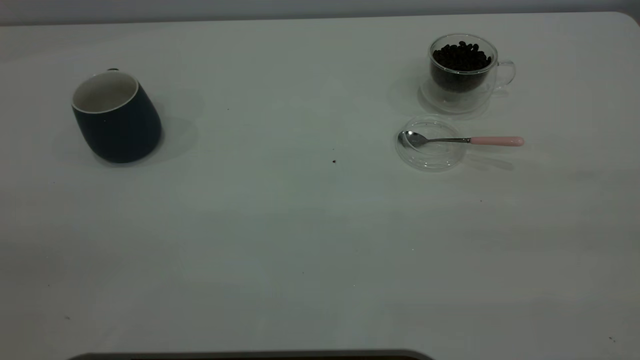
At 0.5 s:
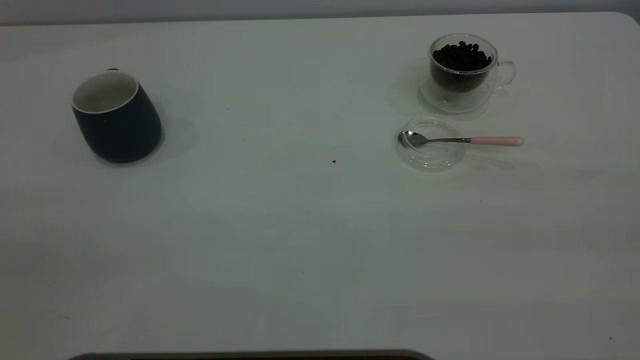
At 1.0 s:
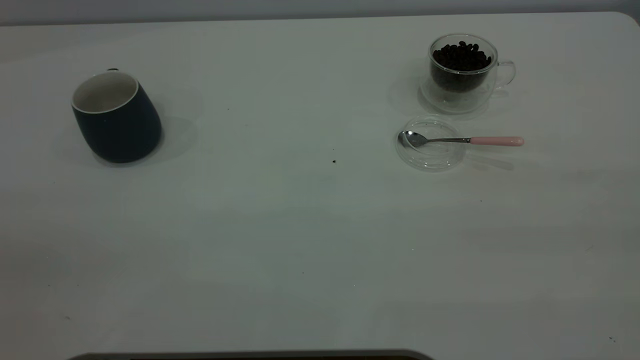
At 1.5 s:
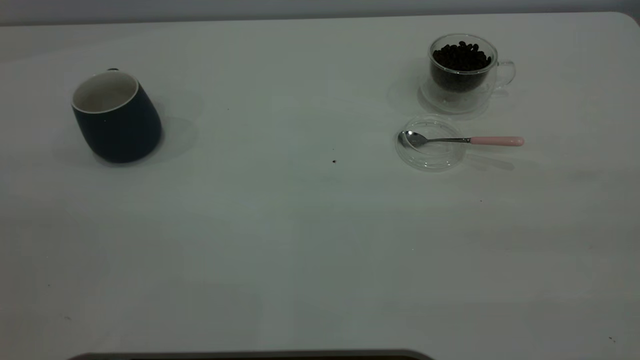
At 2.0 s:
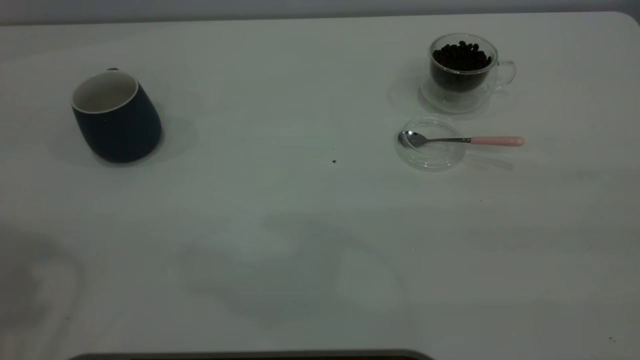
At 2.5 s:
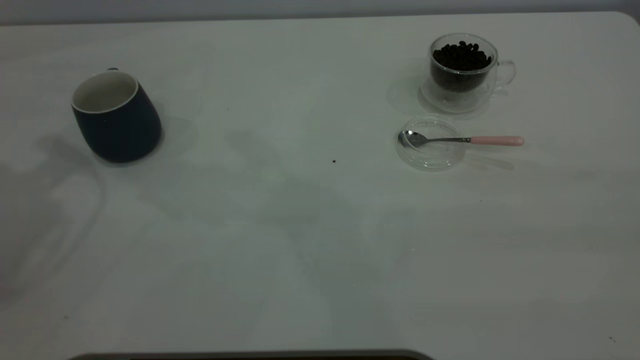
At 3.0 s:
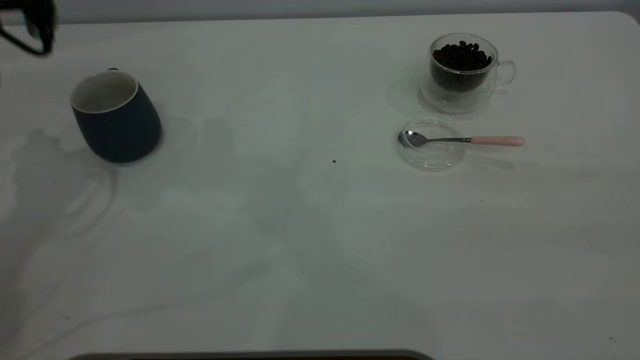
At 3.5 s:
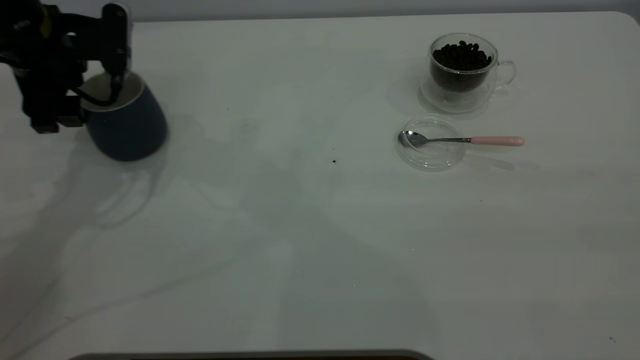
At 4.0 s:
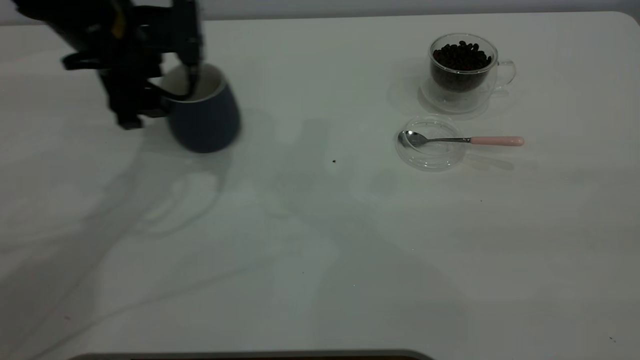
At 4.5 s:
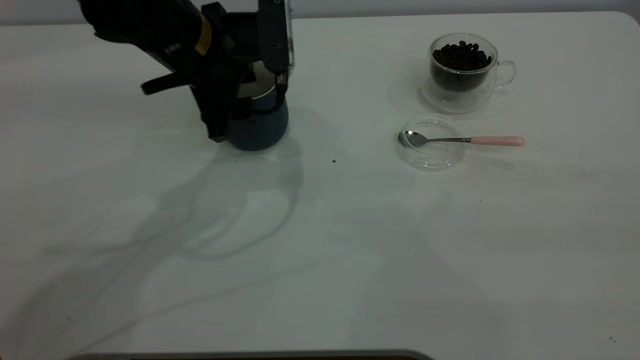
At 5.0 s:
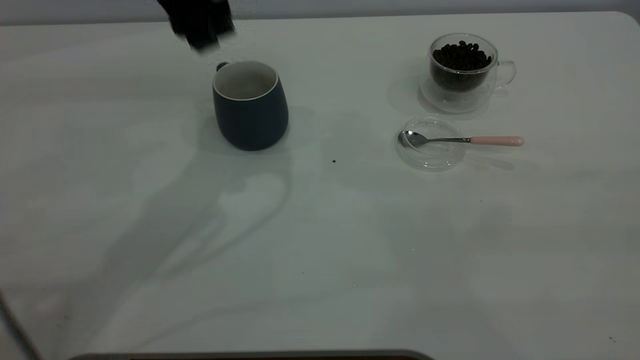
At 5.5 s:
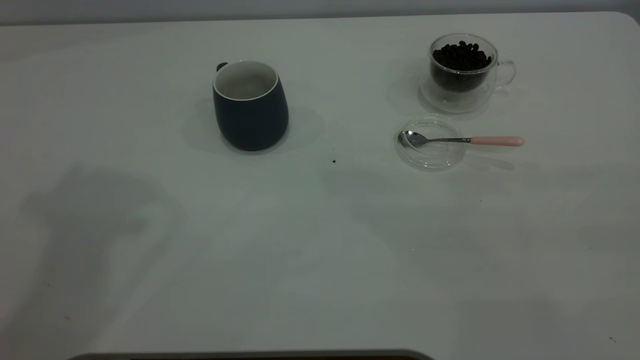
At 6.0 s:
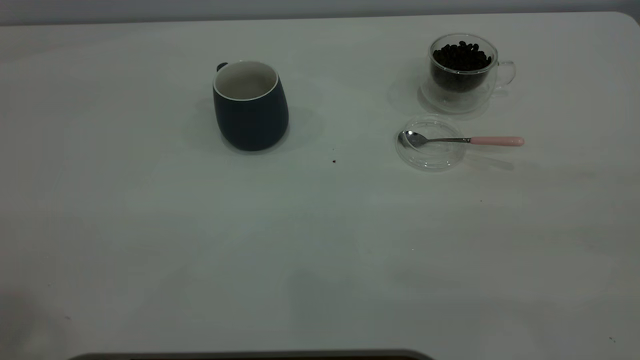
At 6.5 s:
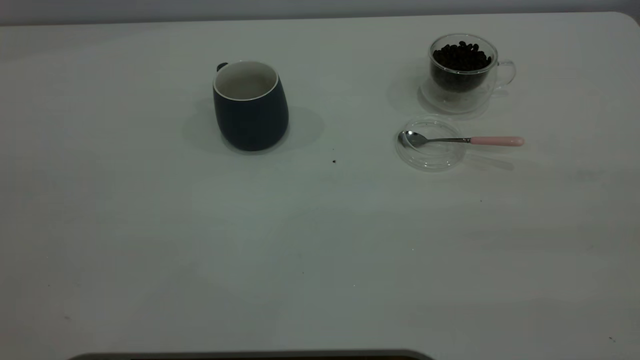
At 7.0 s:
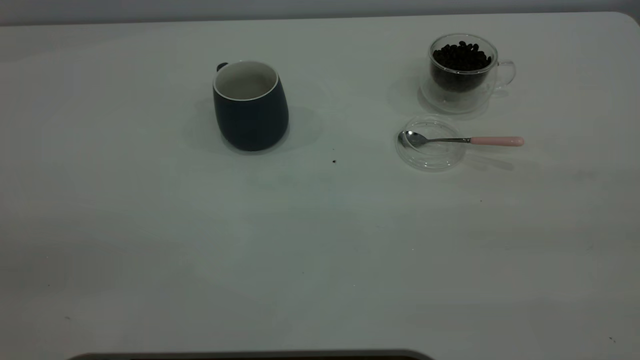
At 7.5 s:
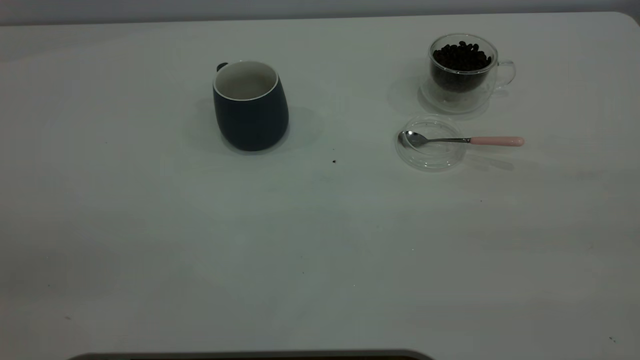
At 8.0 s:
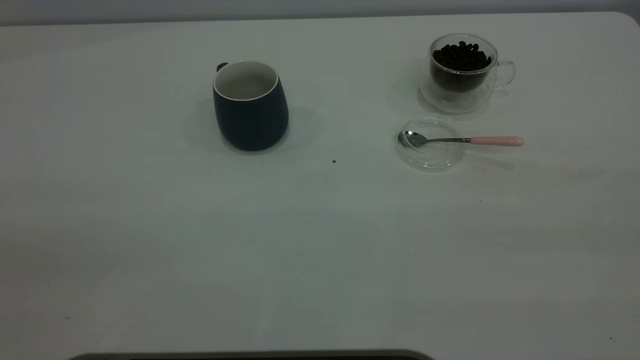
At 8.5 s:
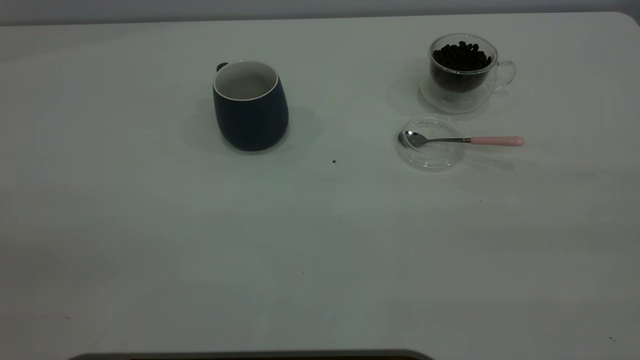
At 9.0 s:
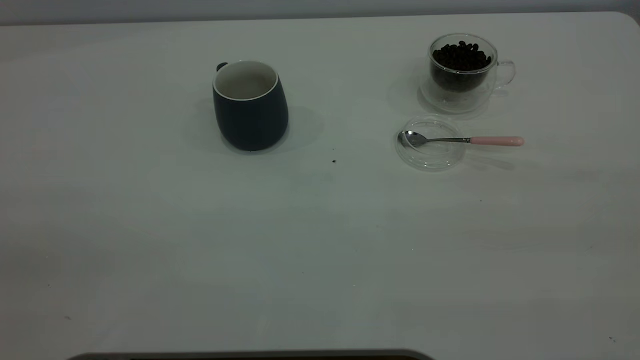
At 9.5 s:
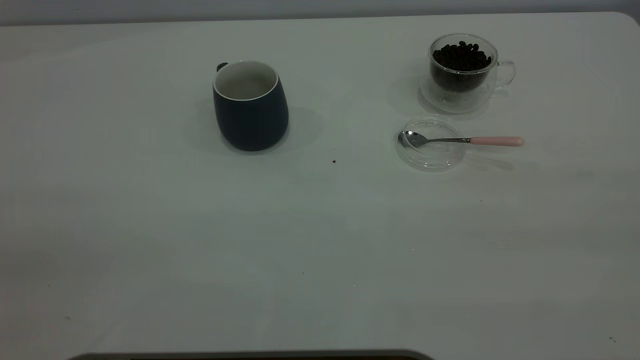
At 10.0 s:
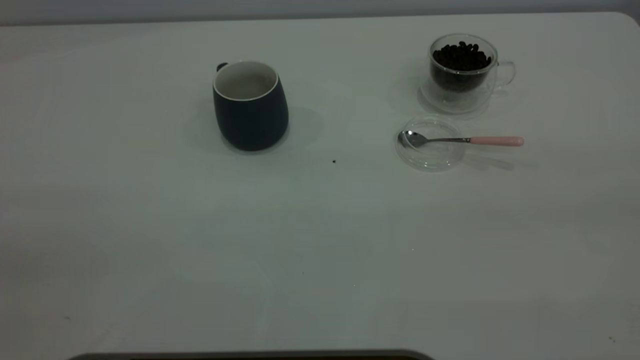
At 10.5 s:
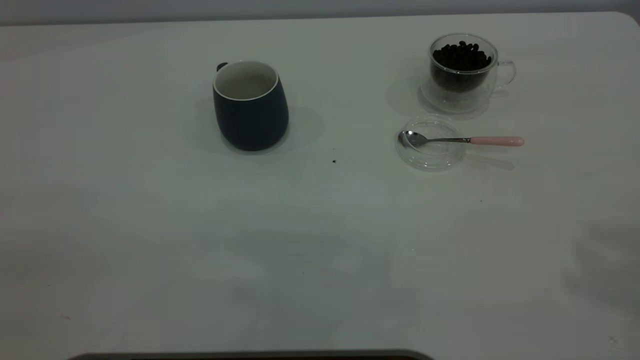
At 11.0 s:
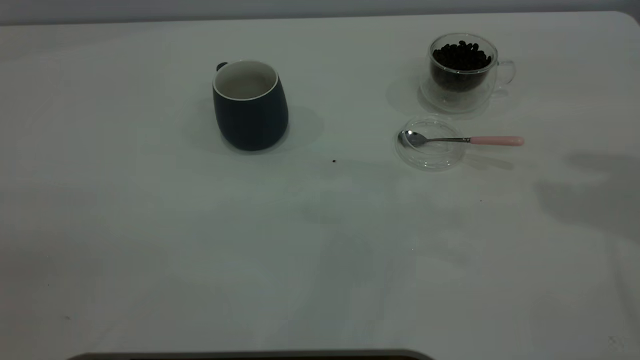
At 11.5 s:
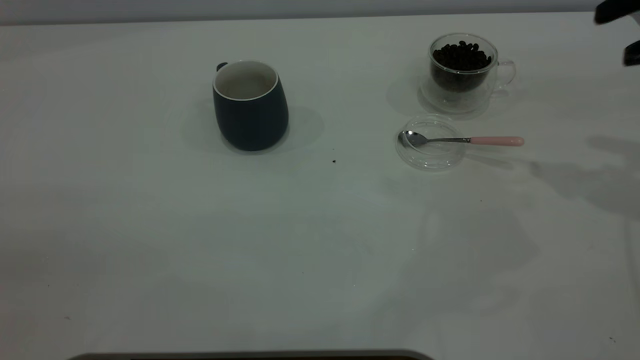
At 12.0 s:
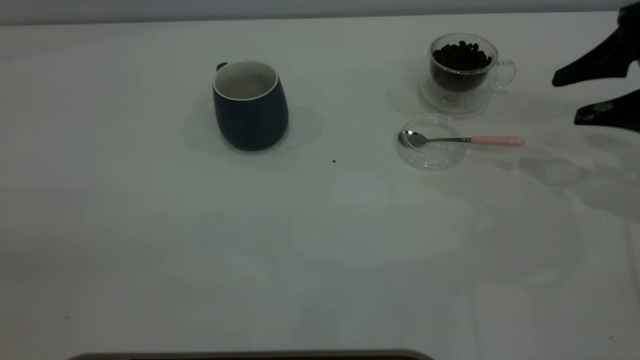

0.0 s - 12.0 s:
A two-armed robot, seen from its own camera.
Task of the whole recording: the left gripper place the grey cup in the center of the table, the right gripper take the pink spoon from the cup lid and scoop out the coffee beans from the coffee cup and put them into the grey cup, the right gripper put the spoon back into the cup lid.
Step, 0.0 s - 4.5 s: Move the cup to the center of view.
2.0 s - 4.0 s: The left gripper goes about 30 cm downward, forward and to the right.
4.0 s - 6.0 s: The left gripper travels upward and backward by roughly 40 cm.
10.0 s - 12.0 s: The right gripper goes some 40 cm forward and downward, and opens.

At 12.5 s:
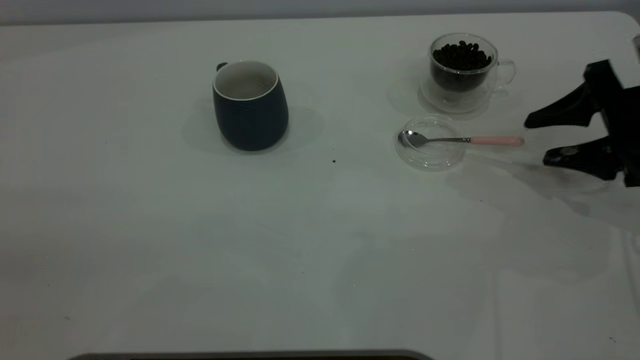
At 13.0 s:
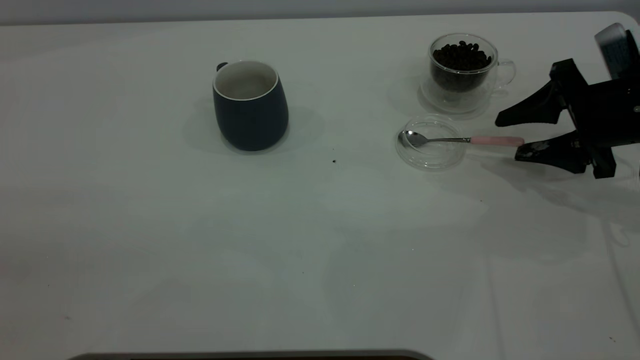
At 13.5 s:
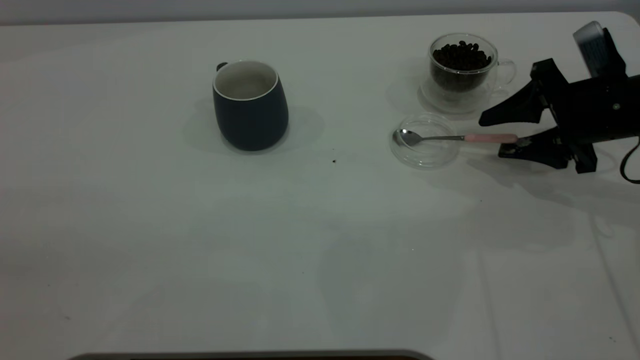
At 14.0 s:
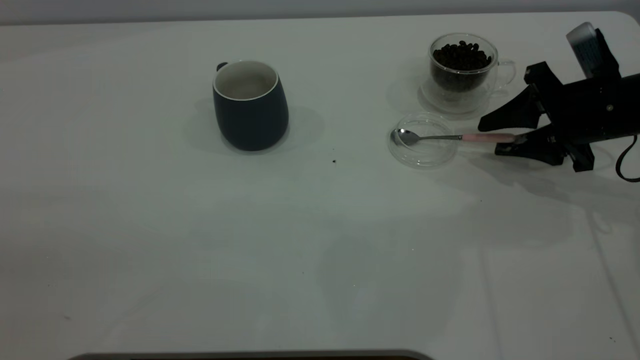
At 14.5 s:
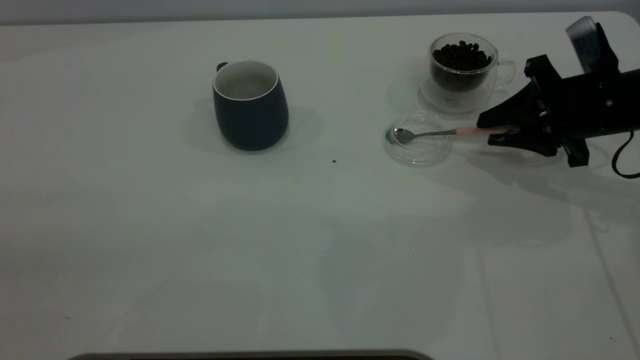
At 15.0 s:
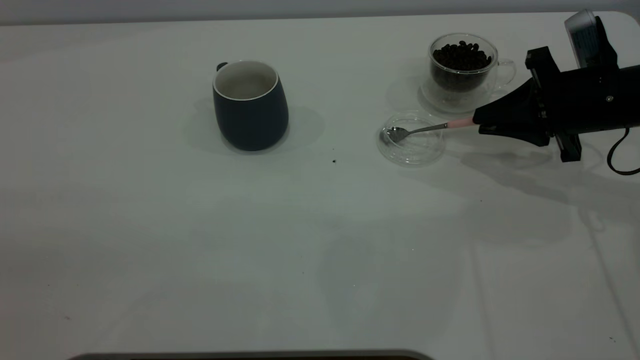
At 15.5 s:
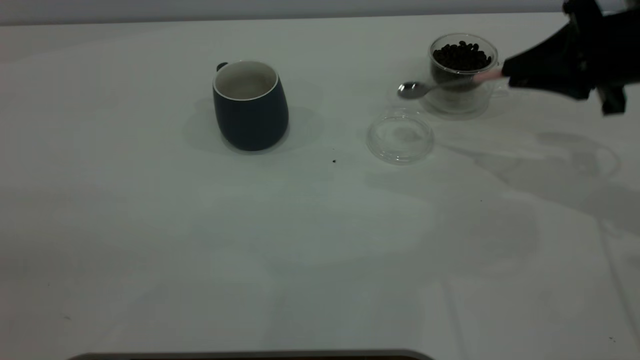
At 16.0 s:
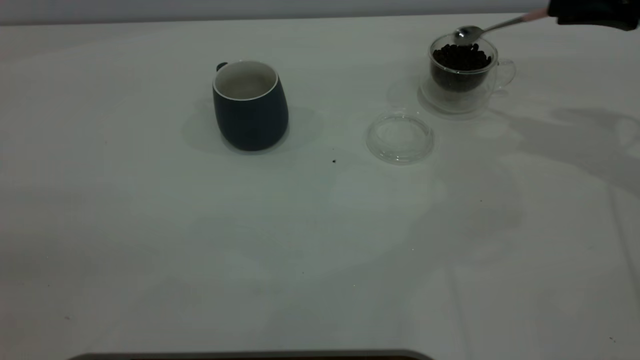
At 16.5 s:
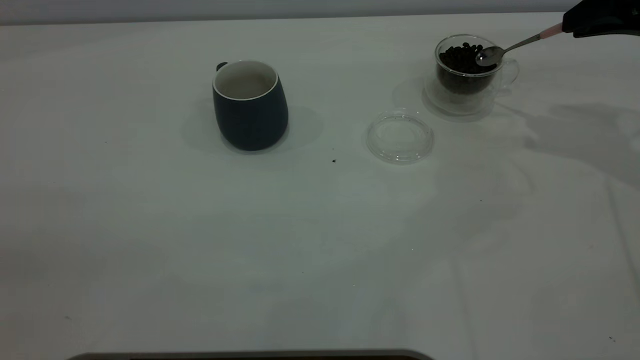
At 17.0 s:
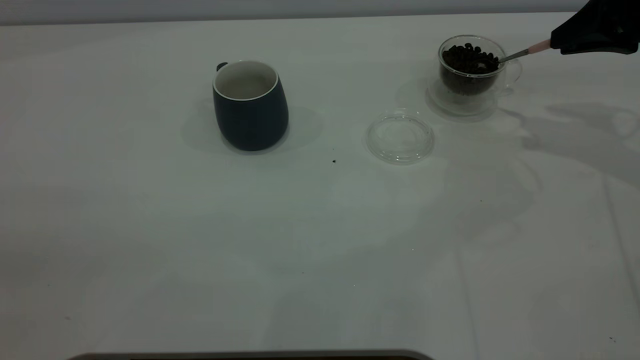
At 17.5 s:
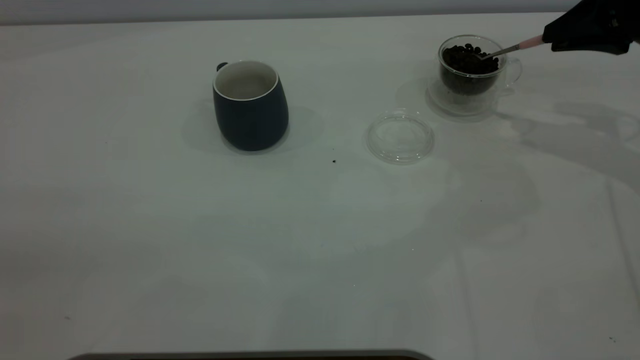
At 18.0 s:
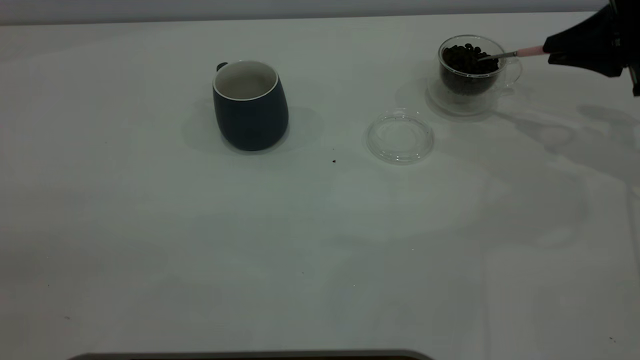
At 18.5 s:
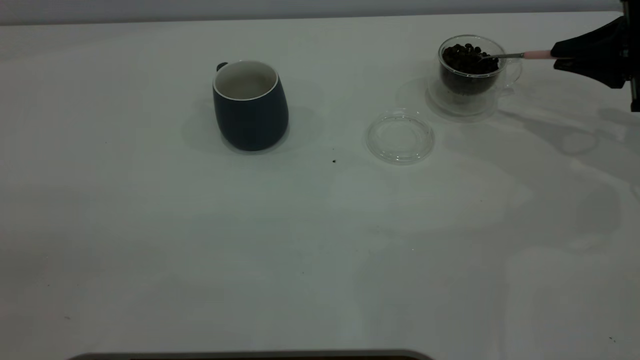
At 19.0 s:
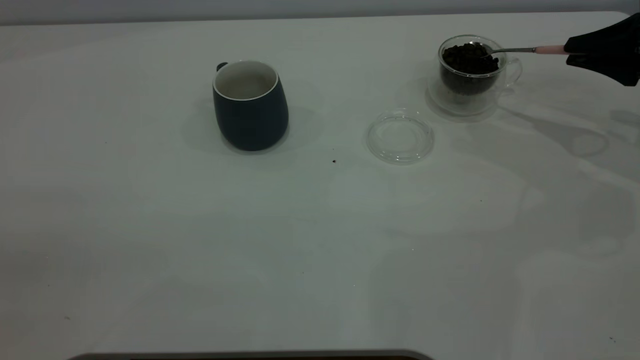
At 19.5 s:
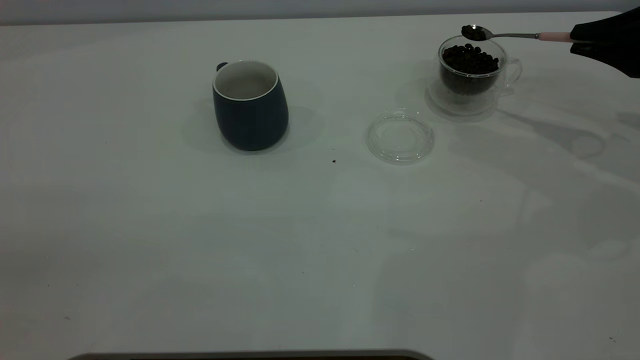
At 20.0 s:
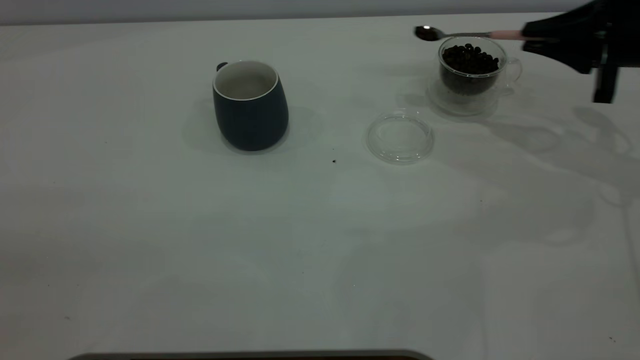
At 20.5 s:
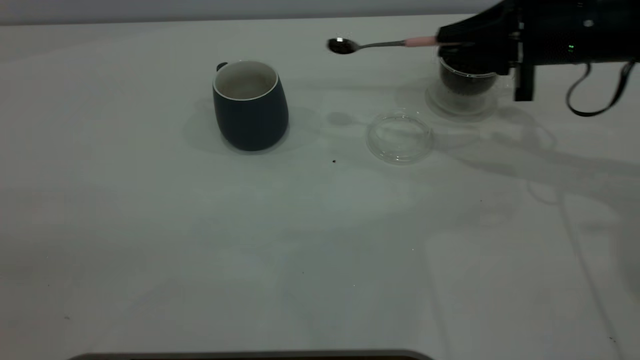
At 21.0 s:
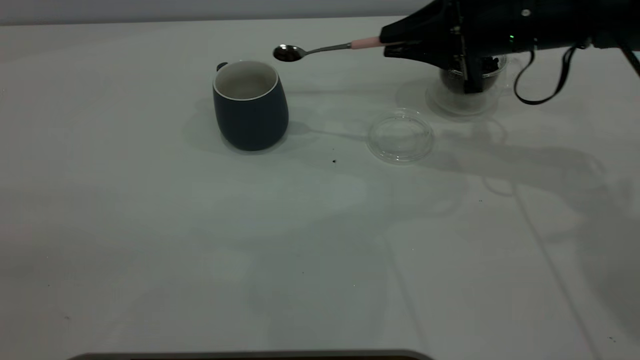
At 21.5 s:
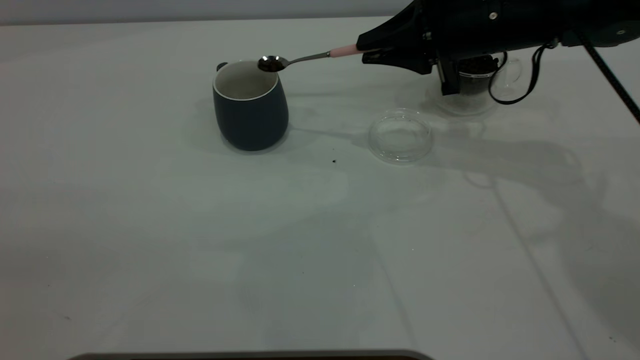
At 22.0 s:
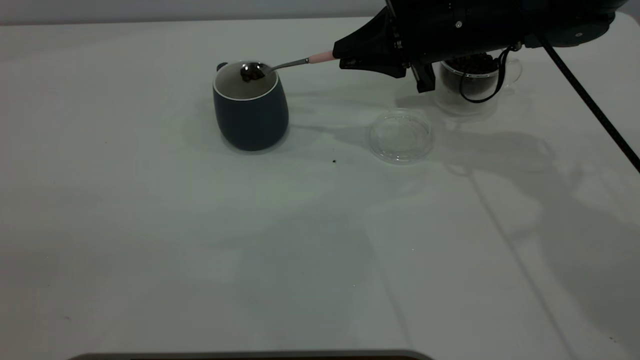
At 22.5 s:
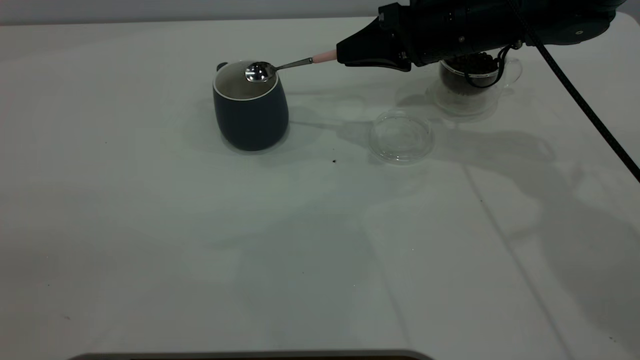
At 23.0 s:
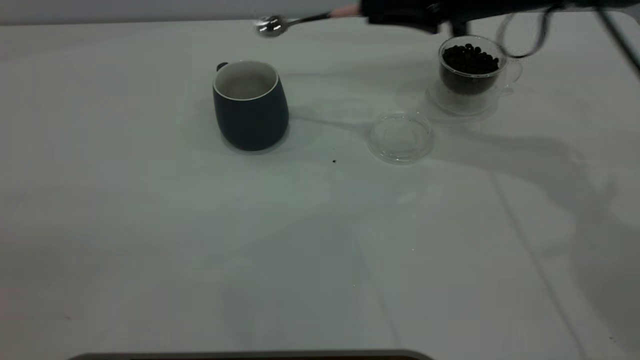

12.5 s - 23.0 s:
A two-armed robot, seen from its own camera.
Task of the whole recording: the left gripper place the grey cup in the center of the table, the right gripper take the pink spoon from the cup lid and scoop out the coffee beans from the coffee cup and put them into the grey cup, the right gripper put the spoon back into the cup lid.
Step, 12.5 s - 15.0 s: Pick up the spoon.
Step, 15.5 s - 22.5 s: Scoop a spoonful of beans into the cup.
12.5 s - 14.5 s: The right gripper moves approximately 5 cm, and closes up.
14.5 s - 16.5 s: The right gripper travels upward by approximately 10 cm.
16.5 s - 19.0 s: The right gripper goes some 5 cm downward.
19.0 s - 21.0 s: The right gripper is displaced to the left by about 20 cm.
